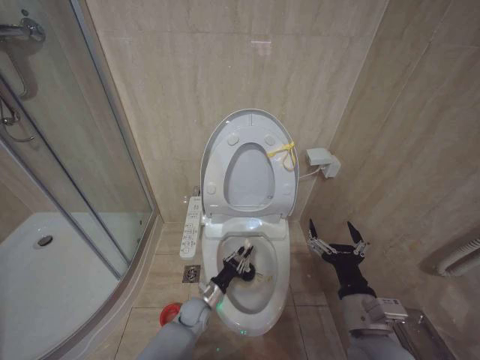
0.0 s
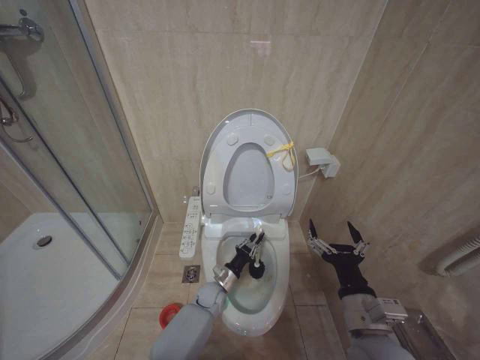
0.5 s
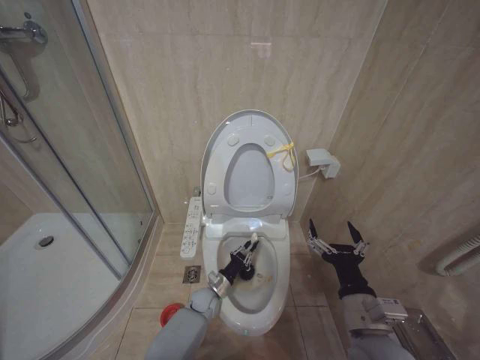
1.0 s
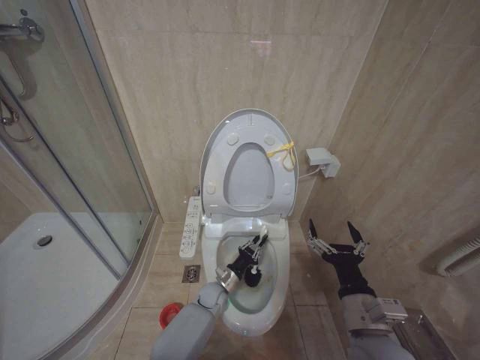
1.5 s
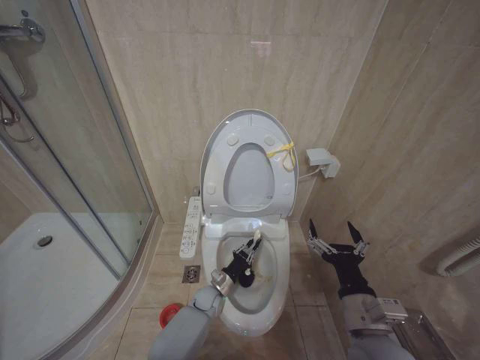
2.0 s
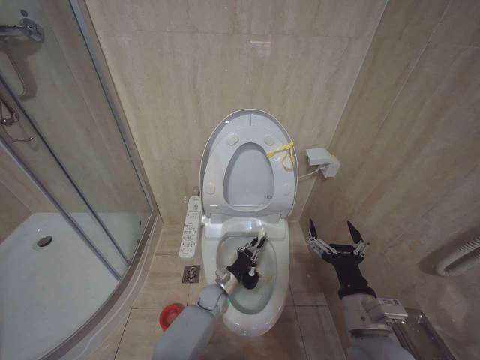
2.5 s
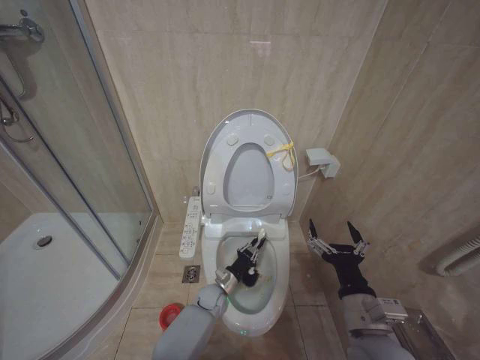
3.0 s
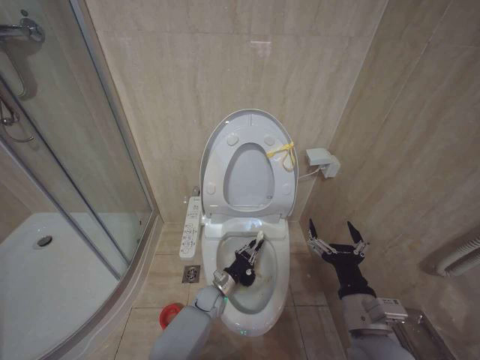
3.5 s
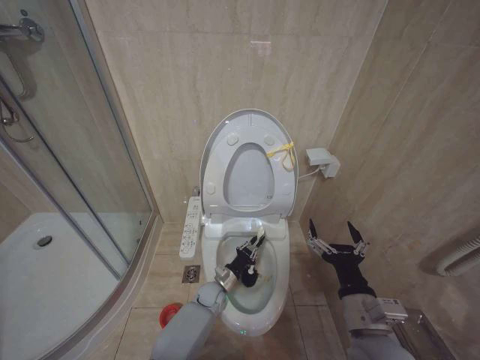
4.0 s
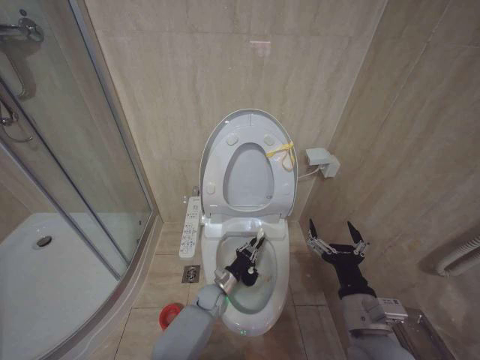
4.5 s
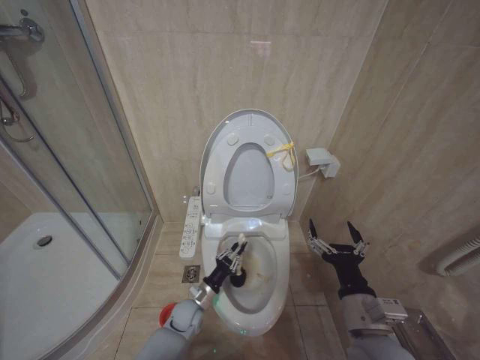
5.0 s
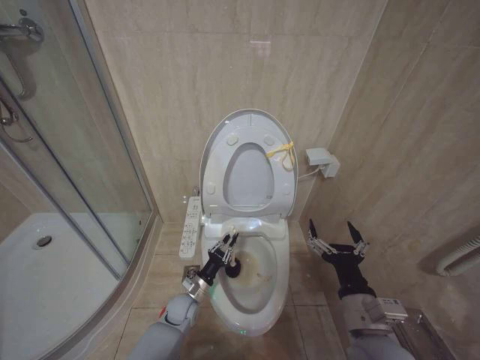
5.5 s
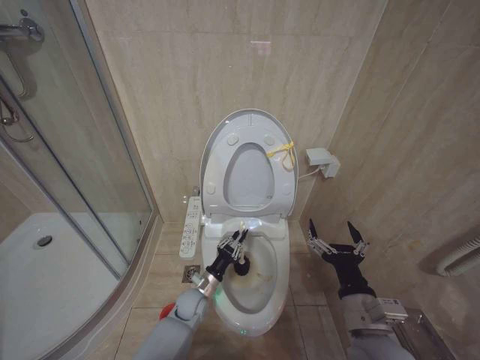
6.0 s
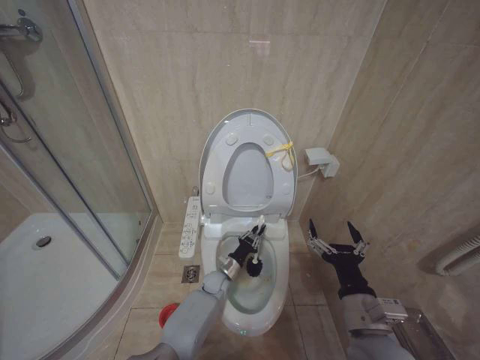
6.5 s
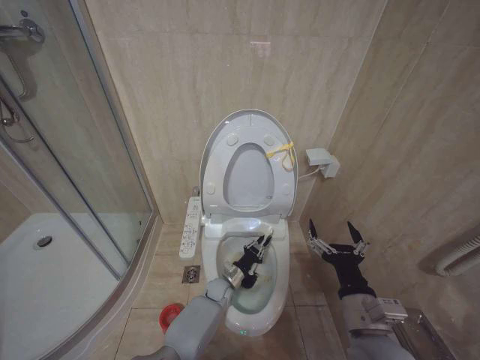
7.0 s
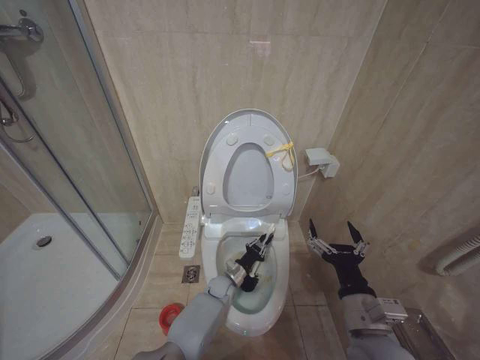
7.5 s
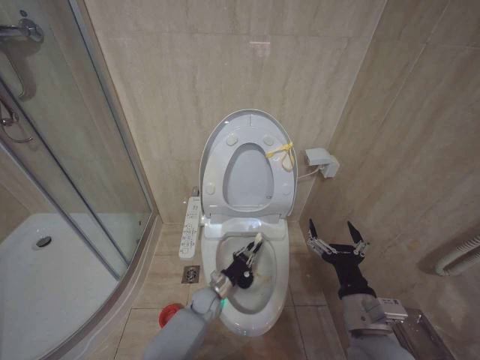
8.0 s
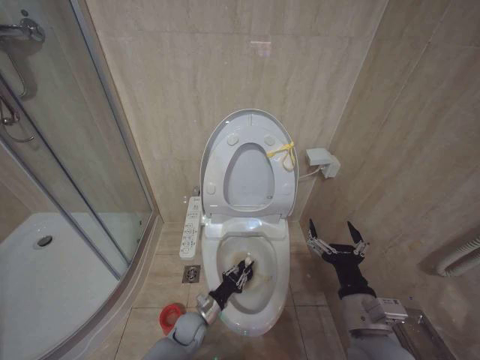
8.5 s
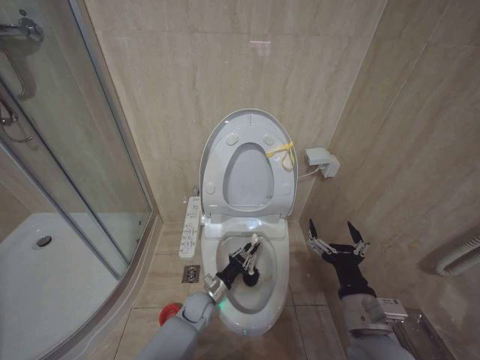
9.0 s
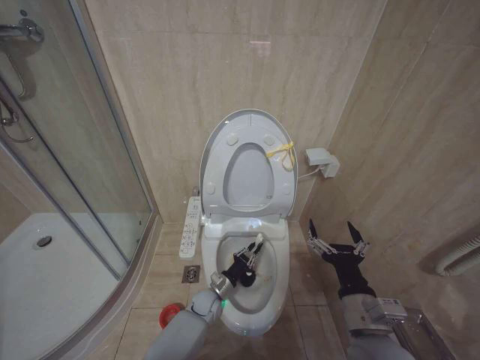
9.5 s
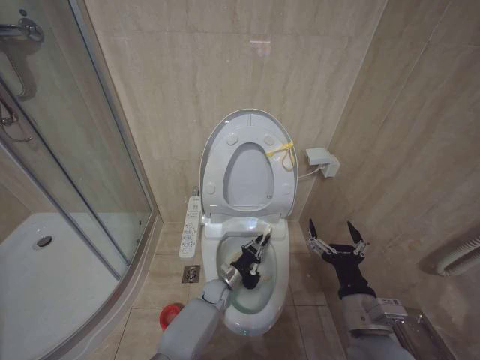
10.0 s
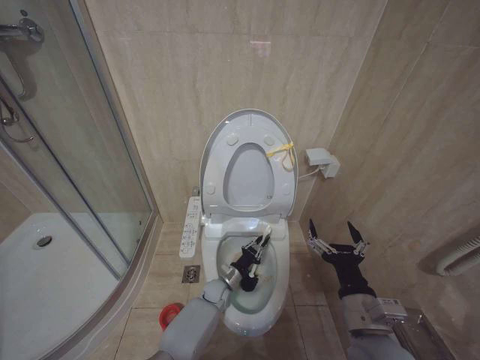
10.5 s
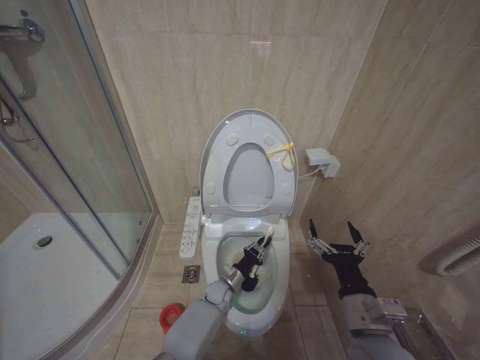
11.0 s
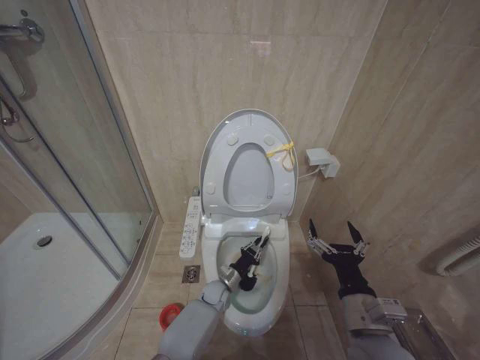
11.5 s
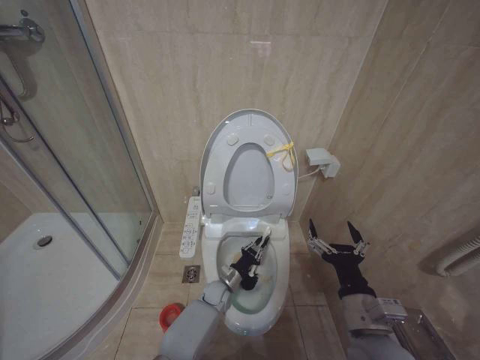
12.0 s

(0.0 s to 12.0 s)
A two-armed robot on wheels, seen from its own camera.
Task of the whole recording: Open the toilet lid, clean the toilet bowl with a toilet brush, close the toilet lid, and flush.
0.0 s - 2.0 s: The left gripper moves about 5 cm.
4.0 s - 6.0 s: The left gripper heads to the left, covering some 5 cm.
6.0 s - 8.0 s: The left gripper is displaced to the right by about 5 cm.
8.0 s - 10.0 s: The left gripper moves approximately 5 cm backward and comes back.

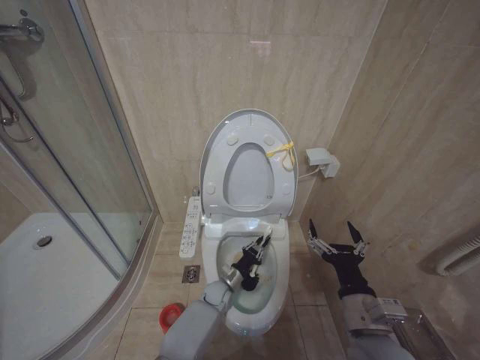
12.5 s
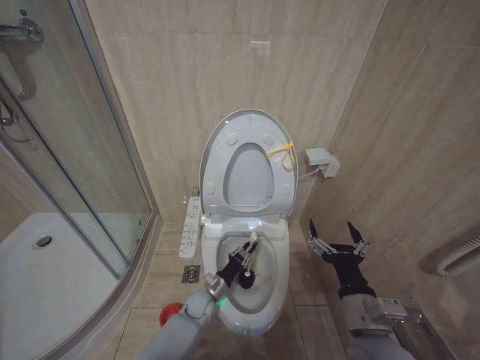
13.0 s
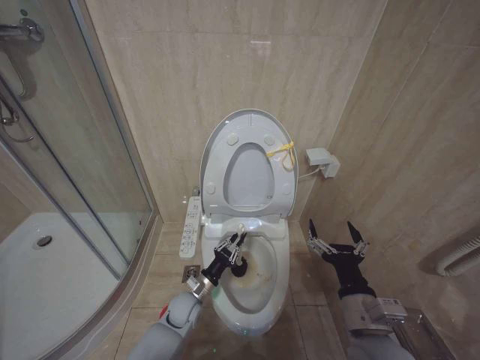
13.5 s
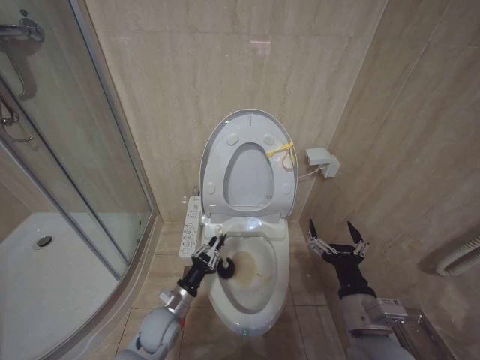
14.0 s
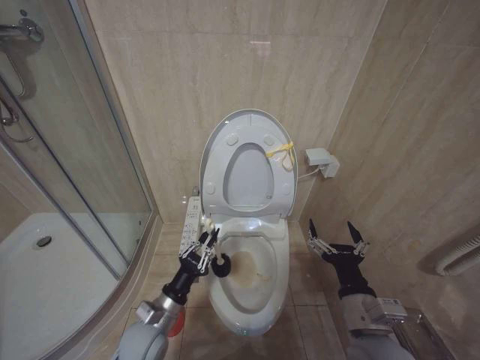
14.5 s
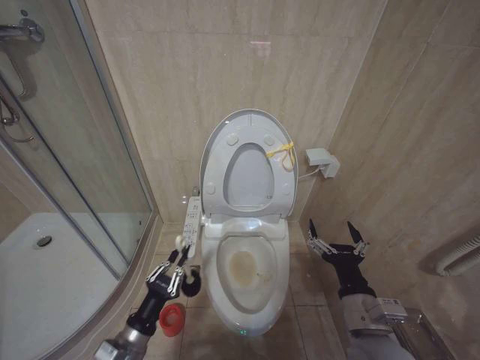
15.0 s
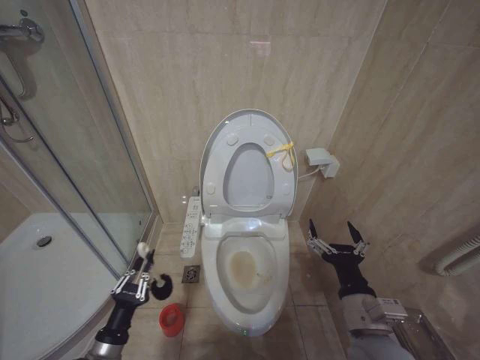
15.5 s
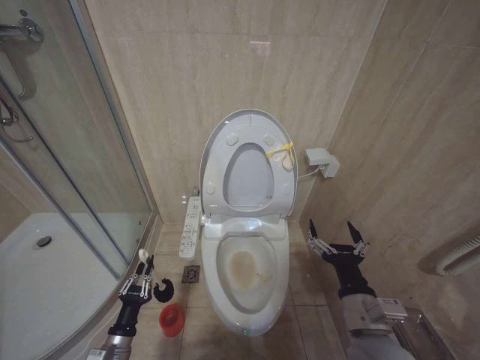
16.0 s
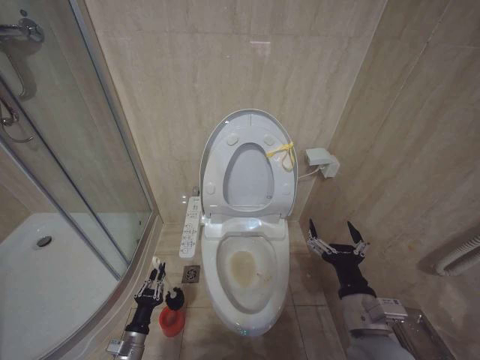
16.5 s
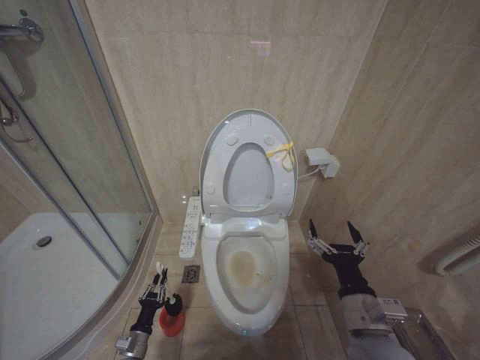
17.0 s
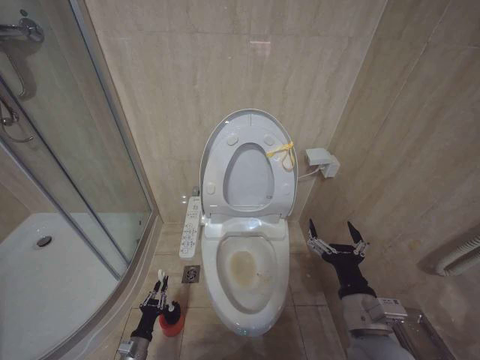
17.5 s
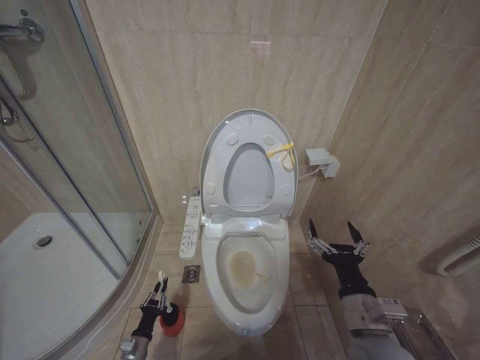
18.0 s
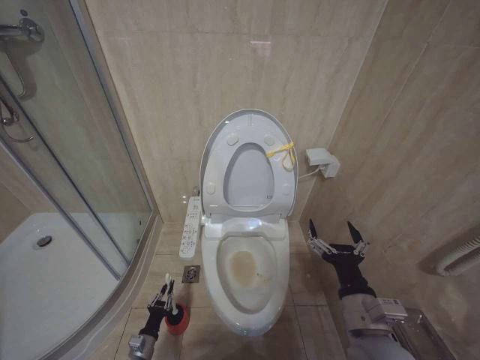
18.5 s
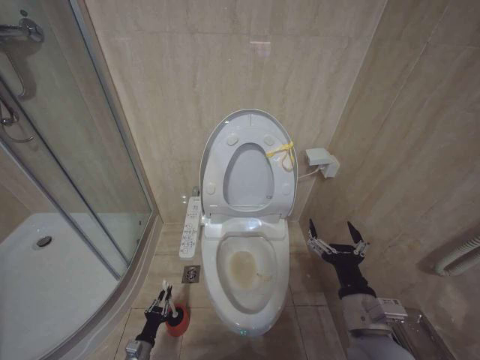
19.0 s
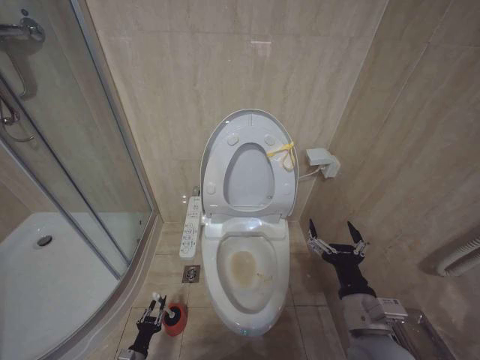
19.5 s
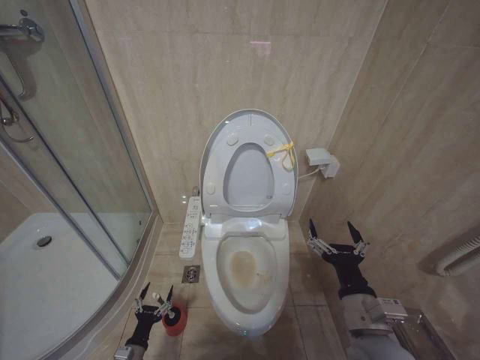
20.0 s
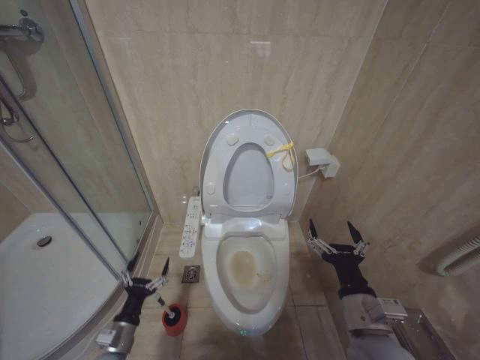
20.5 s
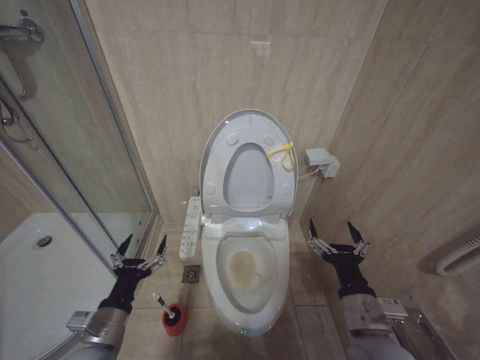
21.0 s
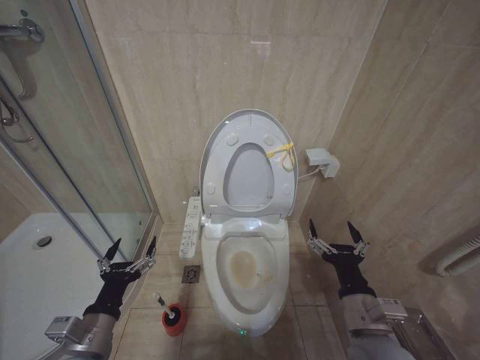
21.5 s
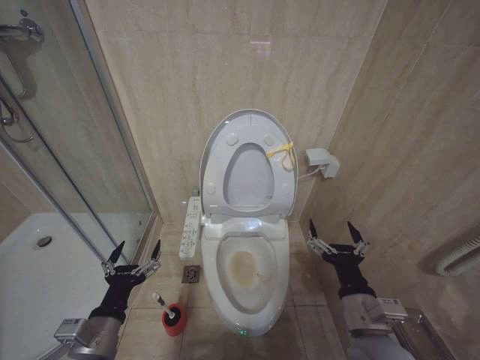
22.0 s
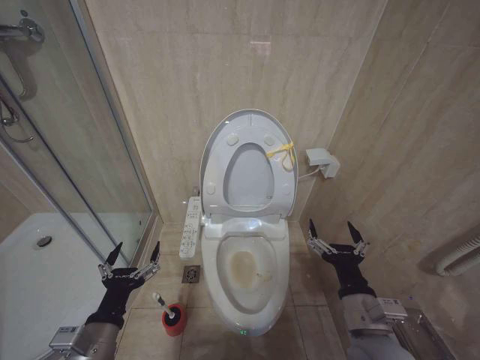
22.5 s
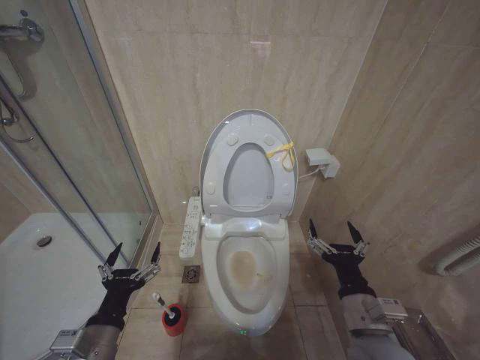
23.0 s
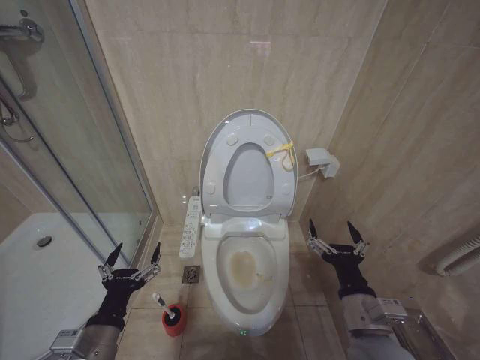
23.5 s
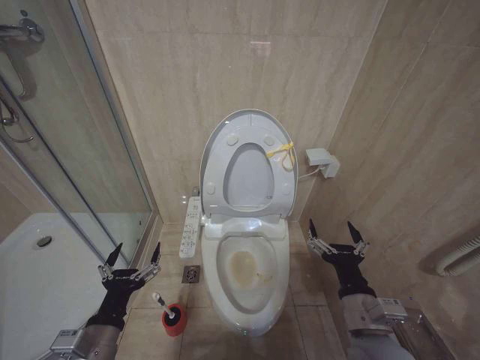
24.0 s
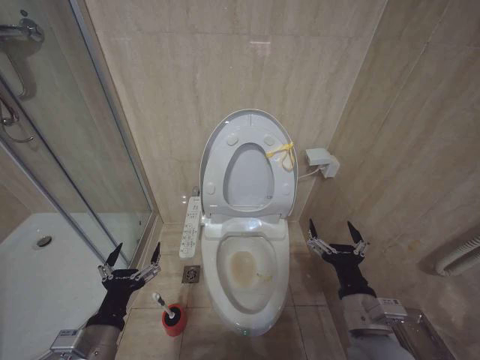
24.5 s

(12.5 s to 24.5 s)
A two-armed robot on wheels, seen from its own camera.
Task of the whole recording: Open the toilet lid, clean the toilet bowl with a toilet brush, close the toilet lid, and flush.
12.5 s - 14.5 s: The left gripper moves backward, to the left and upward, roughly 25 cm.
14.5 s - 16.5 s: The left gripper shifts some 20 cm downward and to the left.
16.5 s - 18.5 s: The left gripper heads downward, covering some 10 cm.
18.5 s - 20.5 s: The left gripper shifts about 15 cm upward, and opens up.
20.5 s - 22.5 s: The left gripper shifts approximately 20 cm upward.
22.5 s - 24.5 s: Both grippers stay about where they are.

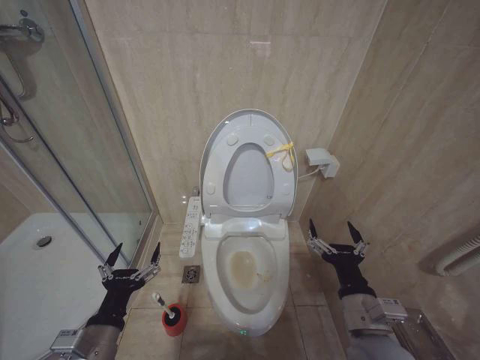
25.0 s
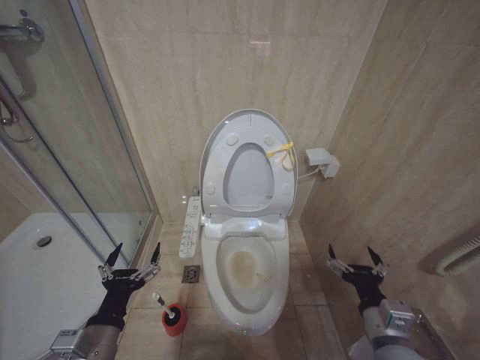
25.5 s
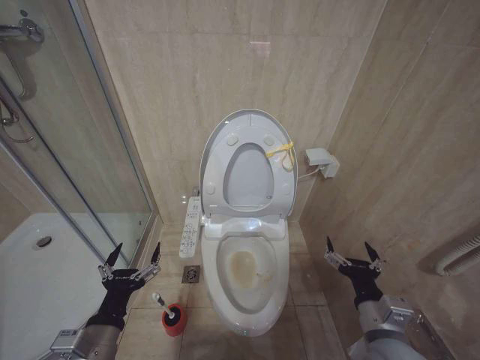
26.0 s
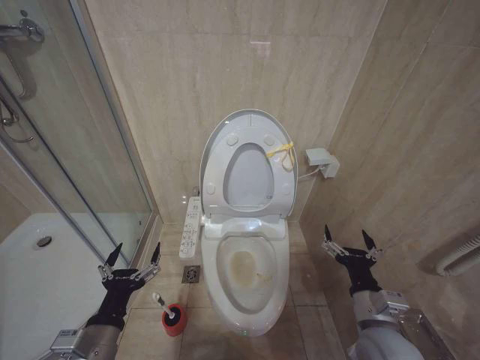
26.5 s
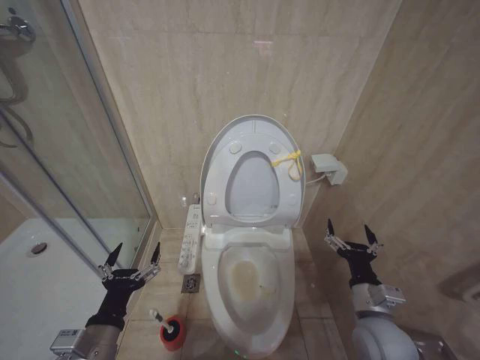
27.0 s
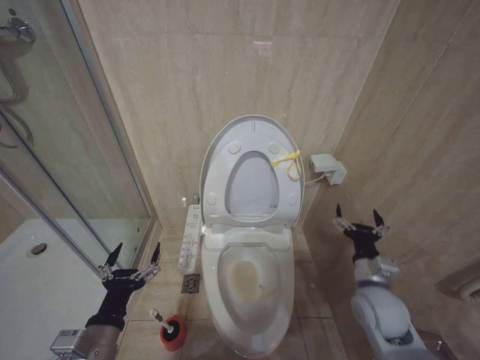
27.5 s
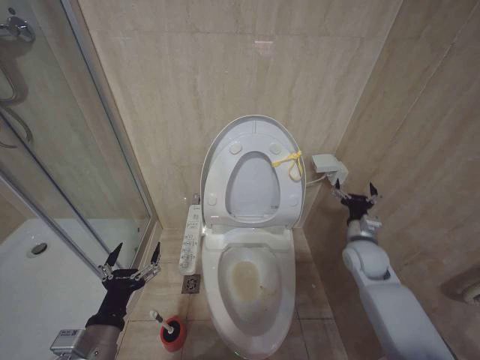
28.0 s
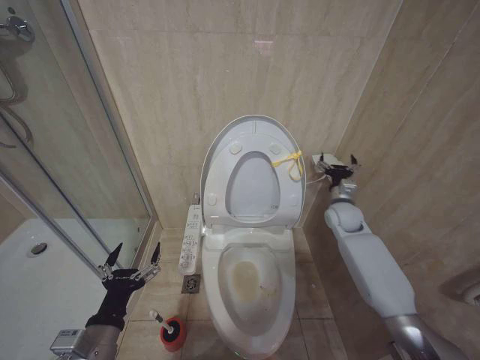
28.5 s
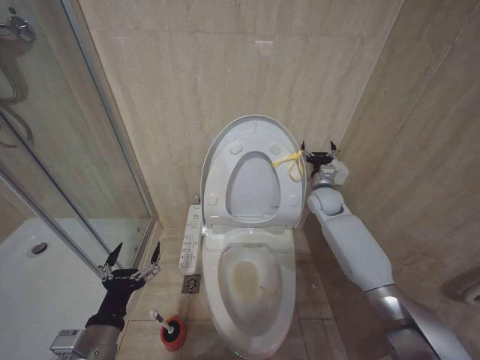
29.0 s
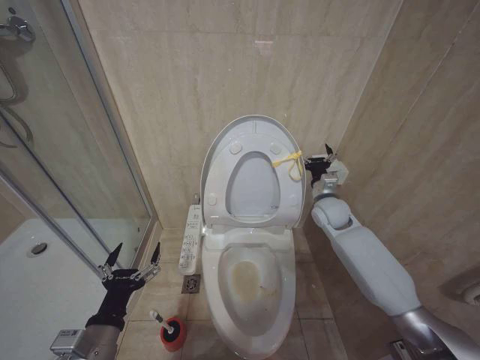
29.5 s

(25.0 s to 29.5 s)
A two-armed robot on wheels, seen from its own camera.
Task of the whole recording: Open the toilet lid, clean the toilet bowl with a toilet brush, close the toilet lid, and flush.
25.0 s - 27.0 s: The right gripper ends up approximately 10 cm from where it was.
27.0 s - 29.5 s: The right gripper goes some 30 cm forward.
